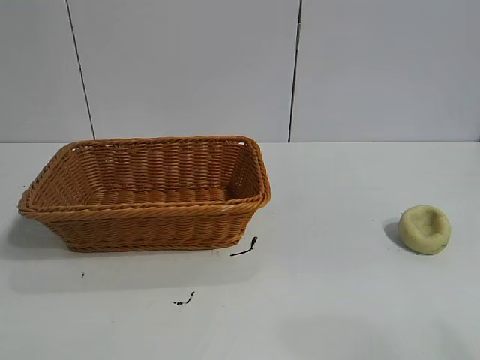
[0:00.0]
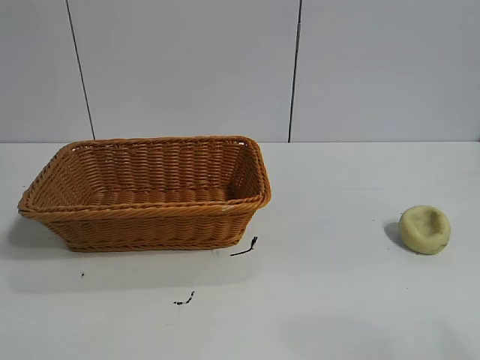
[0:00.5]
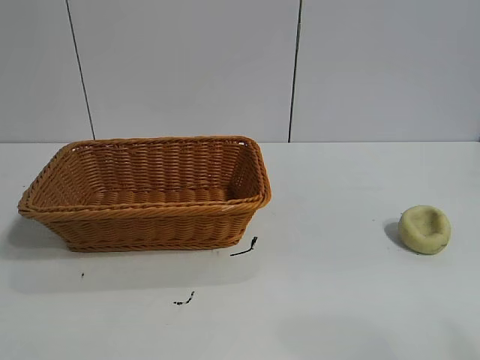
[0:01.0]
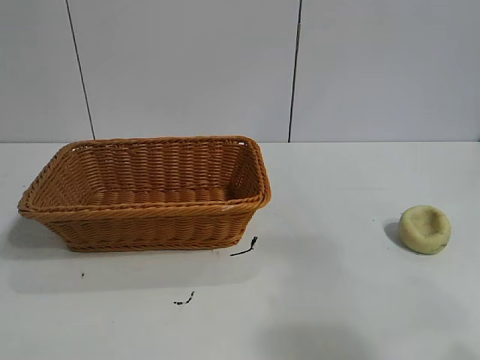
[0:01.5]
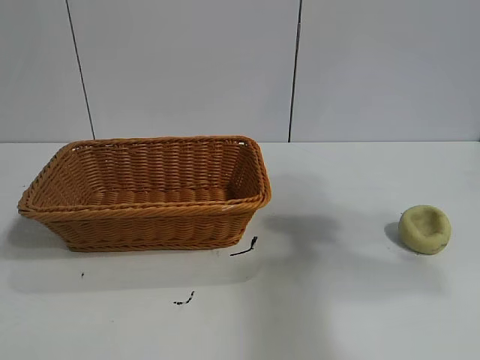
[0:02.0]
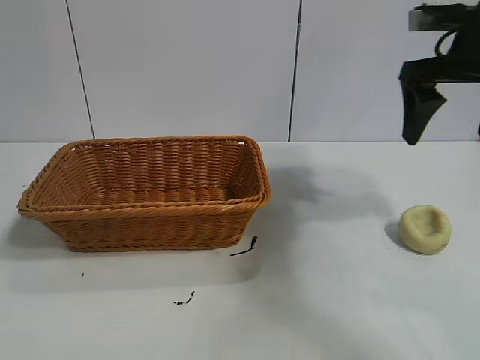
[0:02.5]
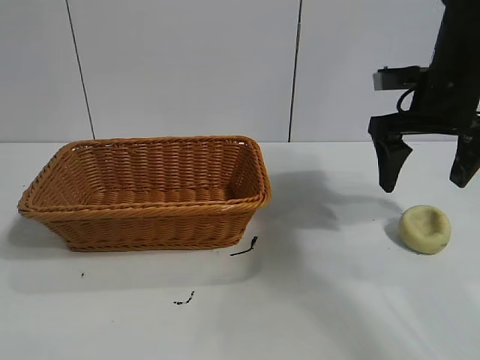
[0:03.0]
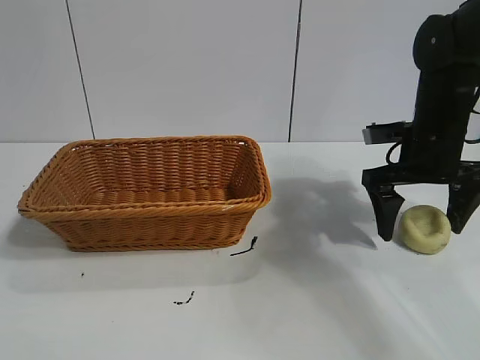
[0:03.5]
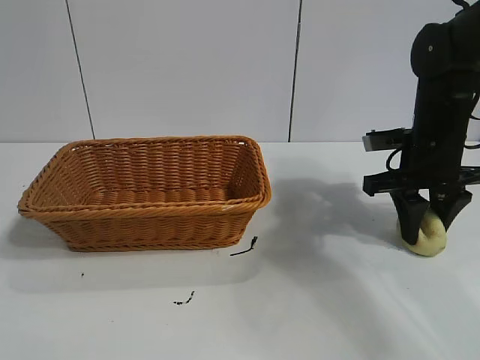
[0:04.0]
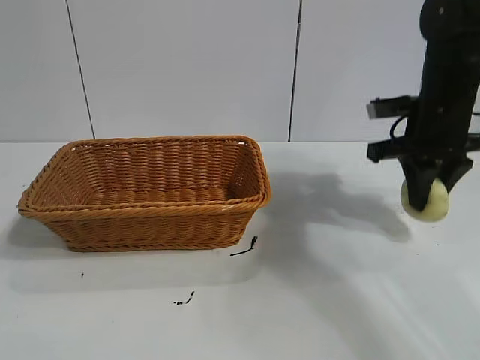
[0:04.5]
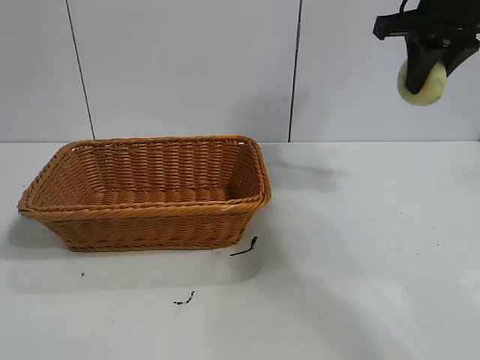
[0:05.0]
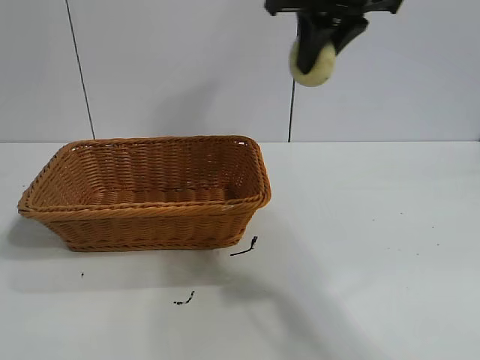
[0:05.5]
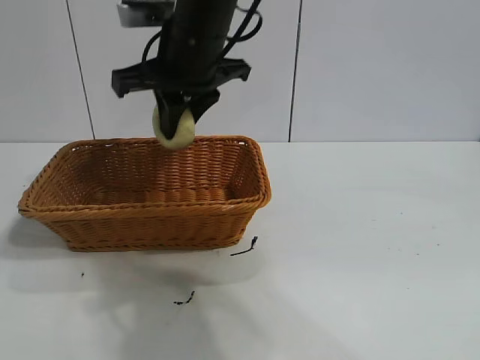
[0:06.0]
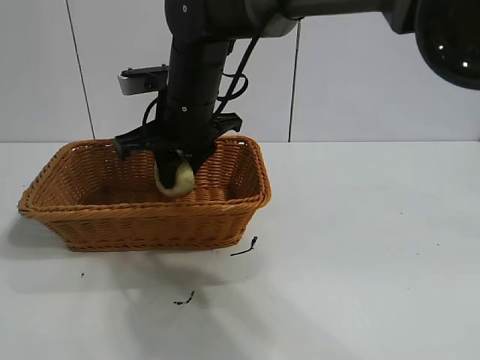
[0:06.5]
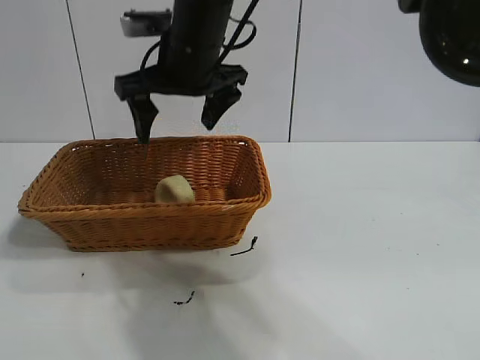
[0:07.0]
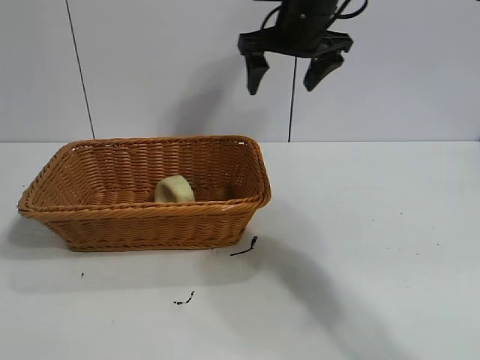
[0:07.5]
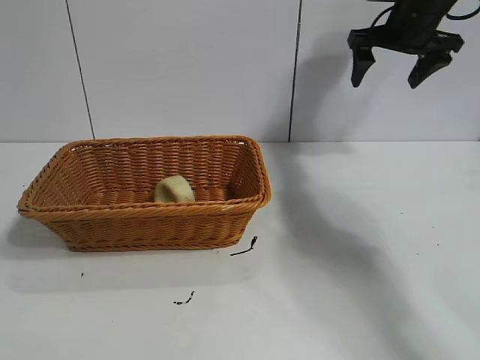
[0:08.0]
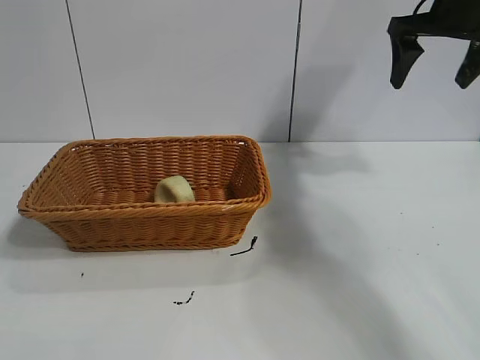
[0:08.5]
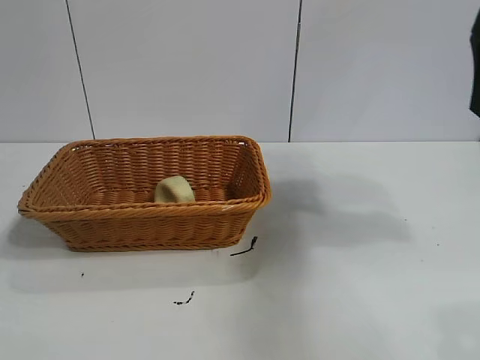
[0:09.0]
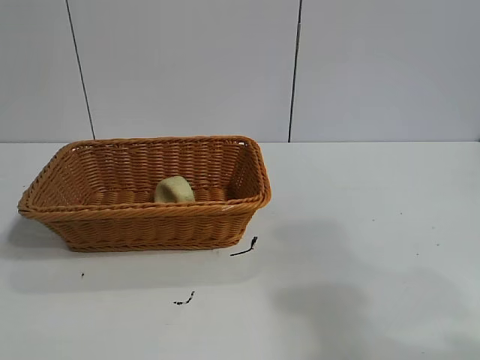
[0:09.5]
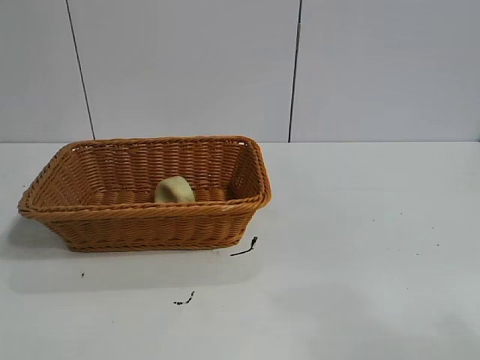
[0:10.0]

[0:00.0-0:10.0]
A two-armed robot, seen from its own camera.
Task of the whole recording: pick up the egg yolk pastry and put it into the basket.
Step, 0:01.0 to 0:04.0: Grasp egg yolk pastry with right gripper.
Step, 0:04.5 to 0:06.5: Place the egg yolk pastry in the basket with right gripper.

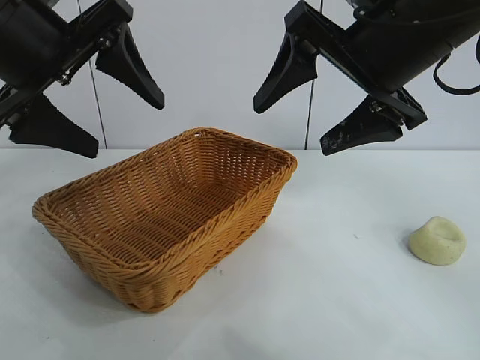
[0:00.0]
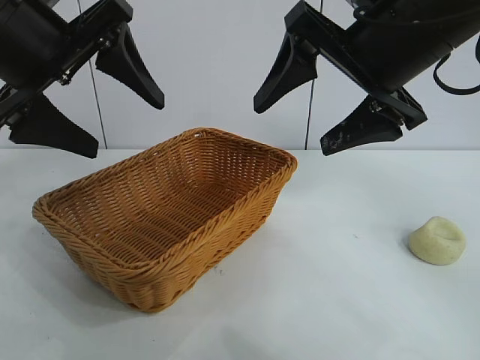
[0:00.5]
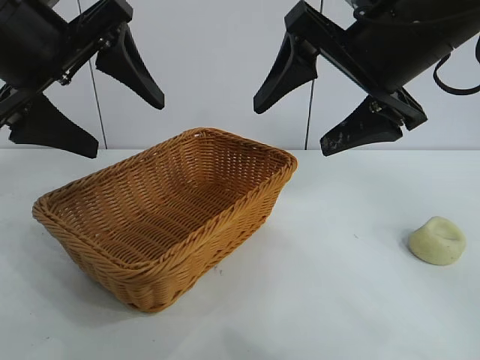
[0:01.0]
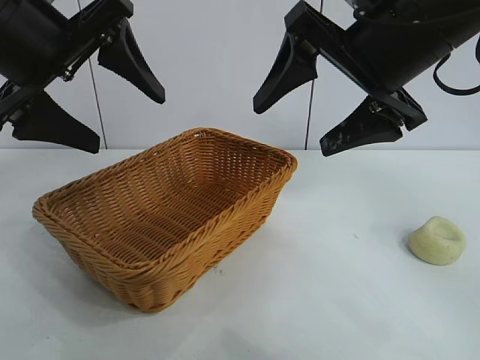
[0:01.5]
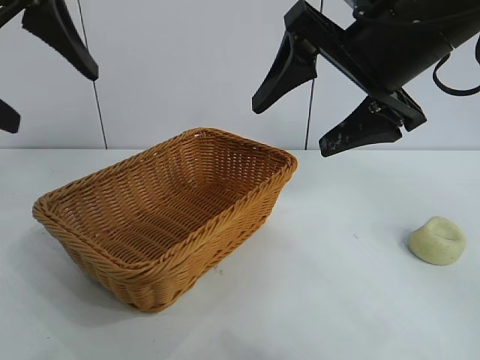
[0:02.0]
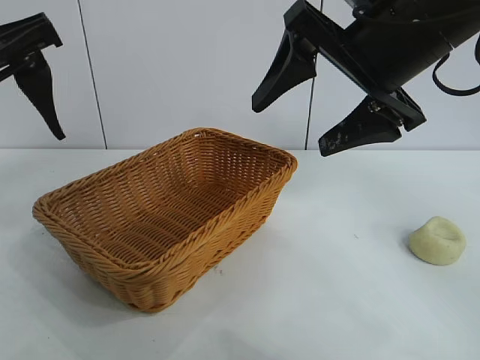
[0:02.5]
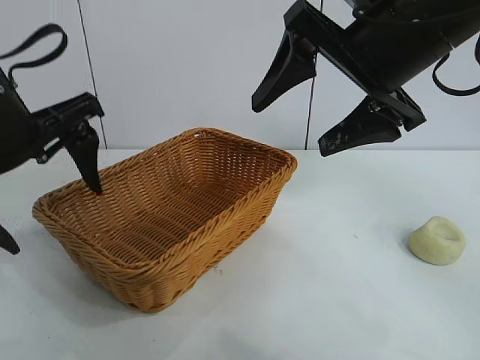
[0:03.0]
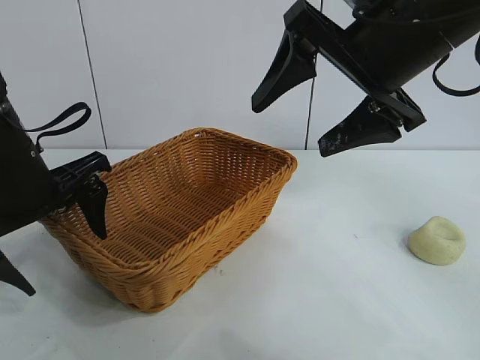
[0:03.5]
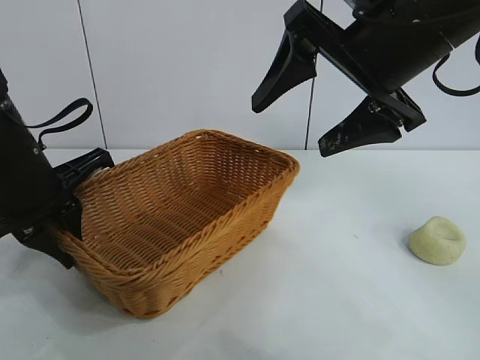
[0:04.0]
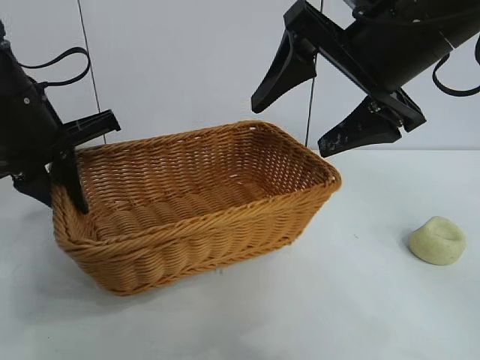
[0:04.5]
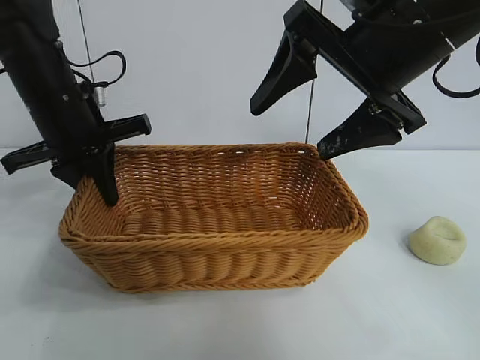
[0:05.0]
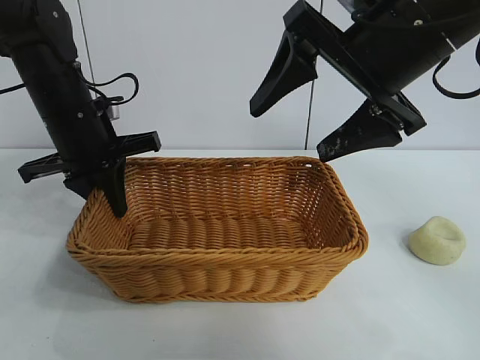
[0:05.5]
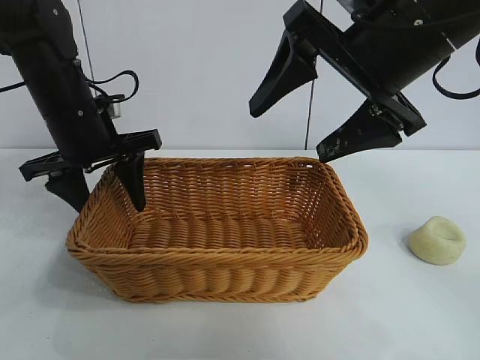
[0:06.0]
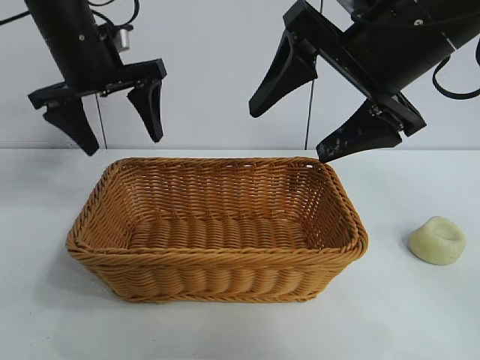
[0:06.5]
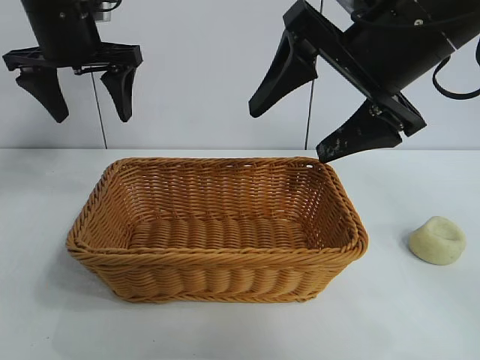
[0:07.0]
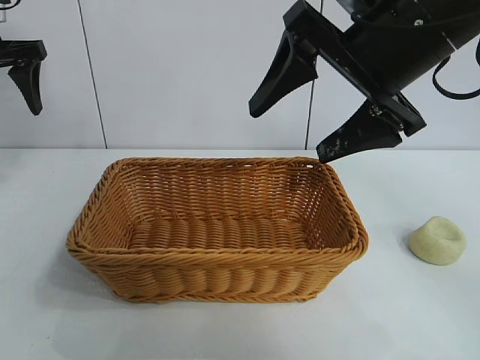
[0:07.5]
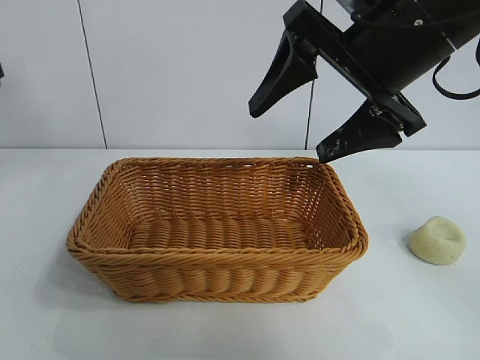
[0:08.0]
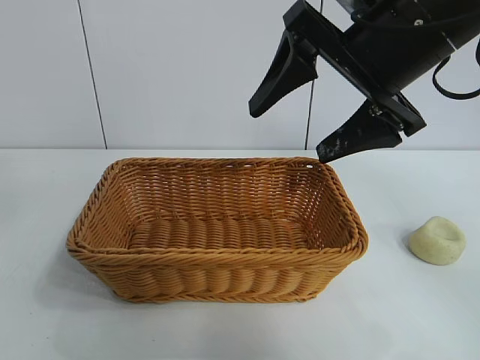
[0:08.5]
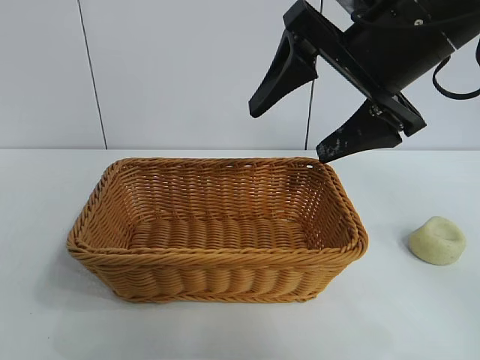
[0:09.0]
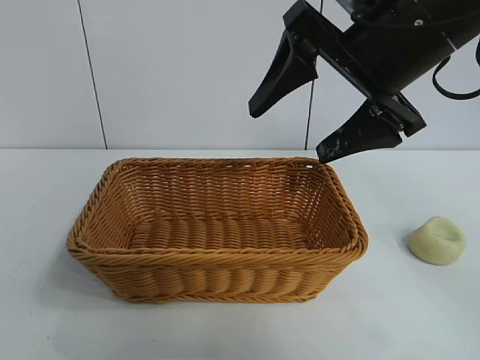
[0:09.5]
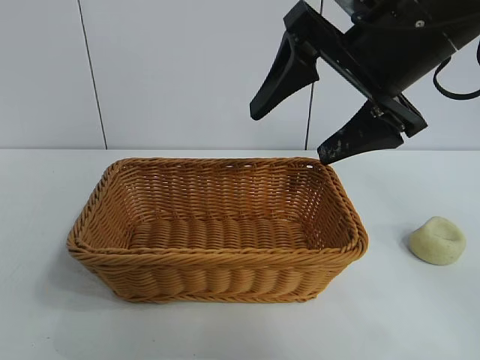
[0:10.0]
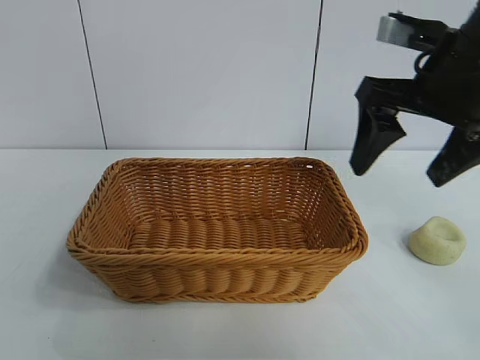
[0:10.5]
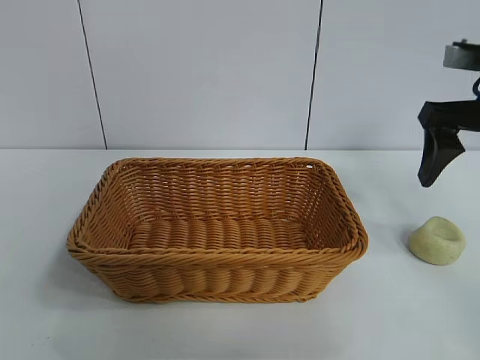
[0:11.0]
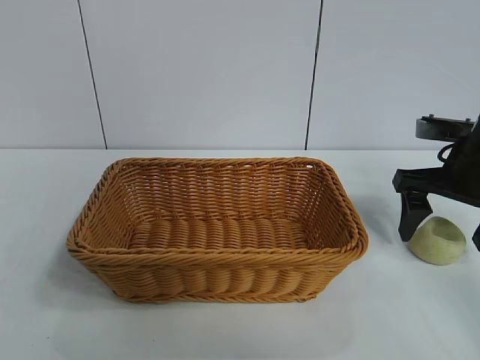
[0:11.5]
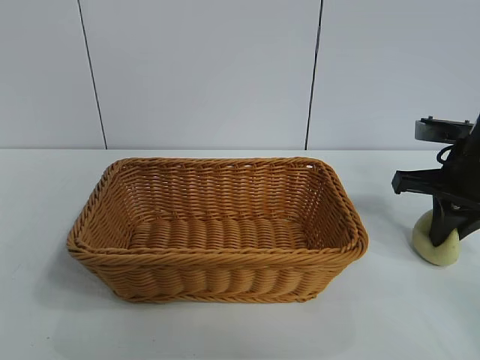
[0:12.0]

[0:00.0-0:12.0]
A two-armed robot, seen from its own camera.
Task of the whole recording: pick up the egg yolk pastry and put it into the basket.
Step, 0:01.5 to 0:03.5: Grasp the basket with left gripper.
Step, 0:04.5 to 0:05.5: Place the basket in the center of view with left gripper.
Step, 0:06.0 to 0:11.5: Grasp egg yolk pastry with right gripper.

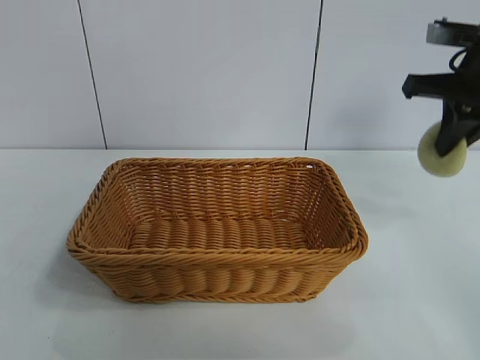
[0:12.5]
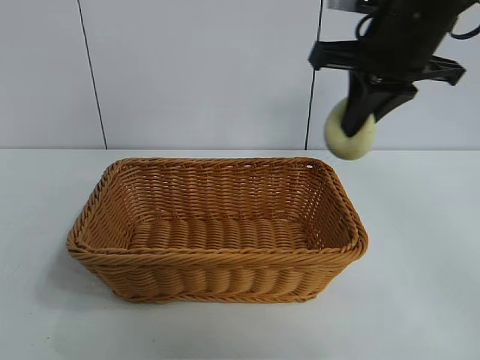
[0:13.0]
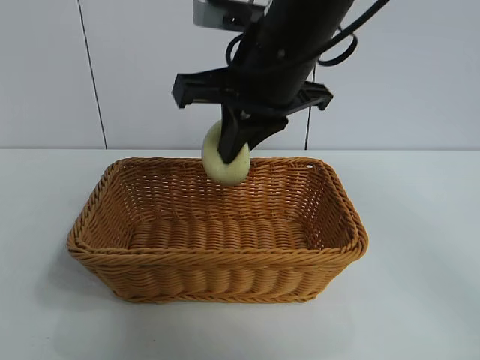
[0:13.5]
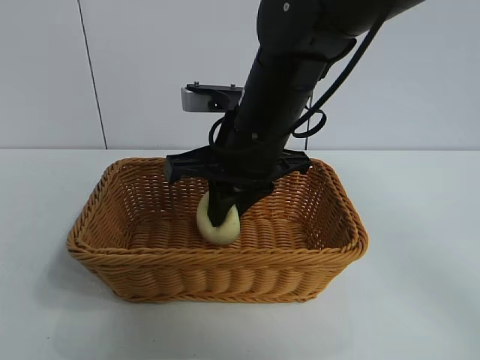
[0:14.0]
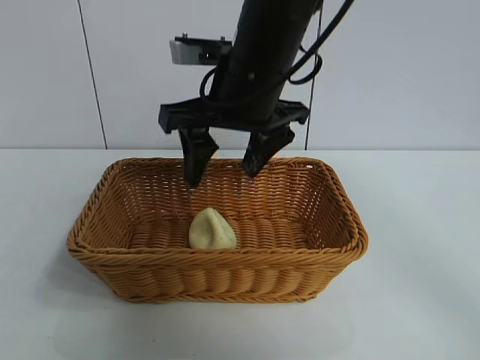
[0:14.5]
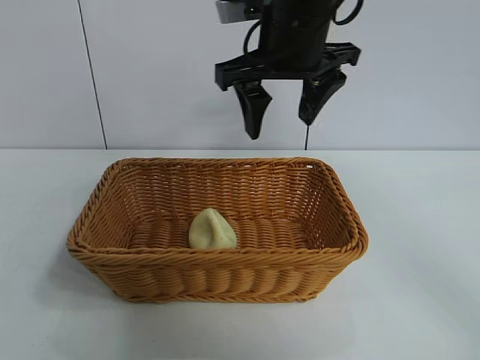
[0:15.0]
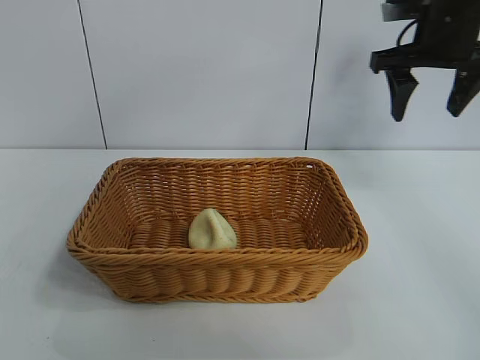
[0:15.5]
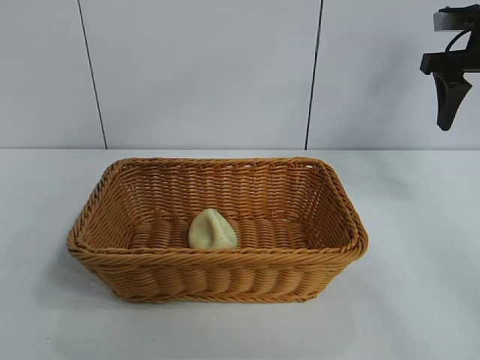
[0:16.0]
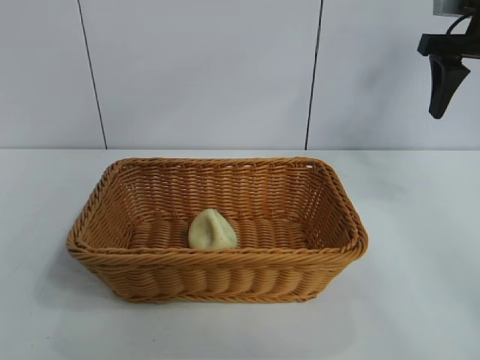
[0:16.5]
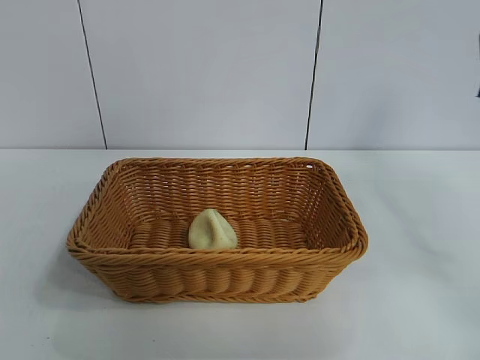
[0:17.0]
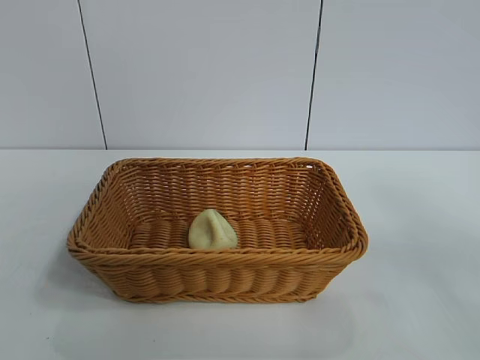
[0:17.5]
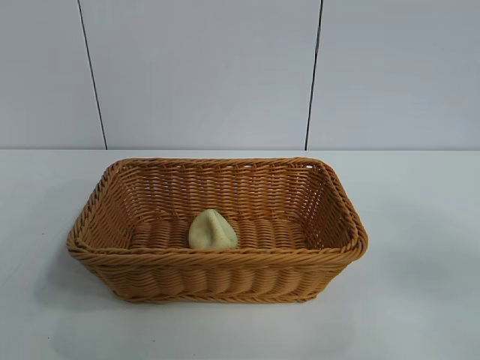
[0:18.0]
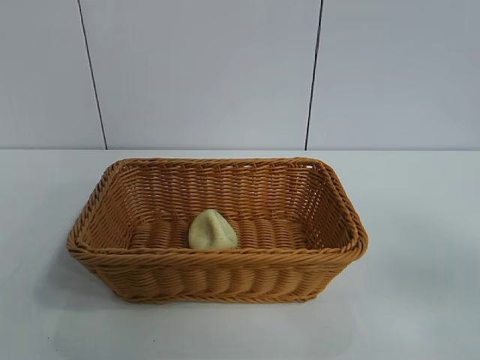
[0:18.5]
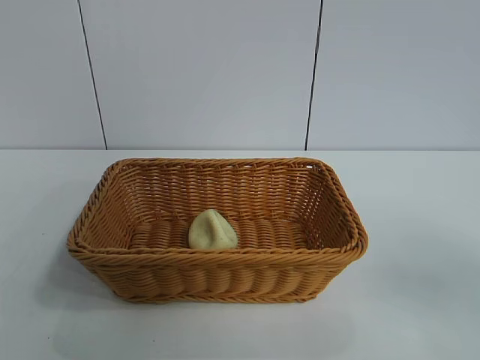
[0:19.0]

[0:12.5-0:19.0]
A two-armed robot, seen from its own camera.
Task of the whole recording: pick up the egg yolk pastry and put it into the basket.
Step, 0:12.5 to 0:14.0: Place the egg yolk pastry in the basket with right gripper.
